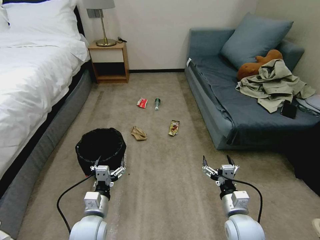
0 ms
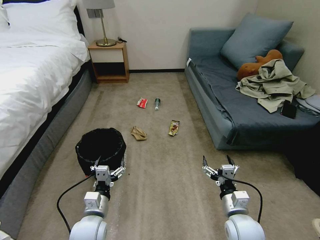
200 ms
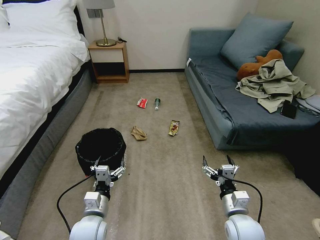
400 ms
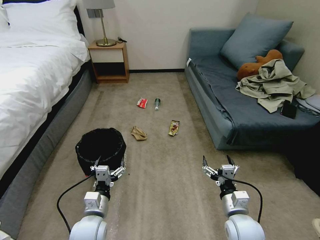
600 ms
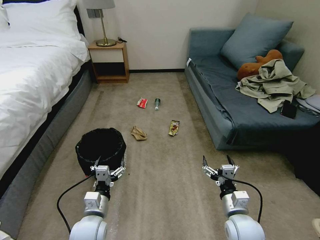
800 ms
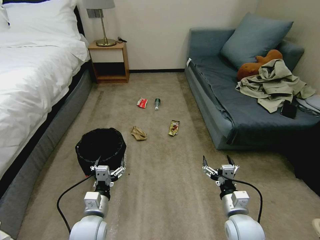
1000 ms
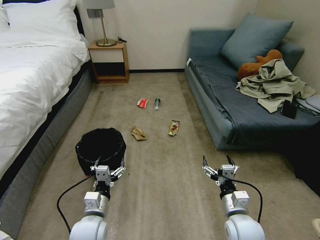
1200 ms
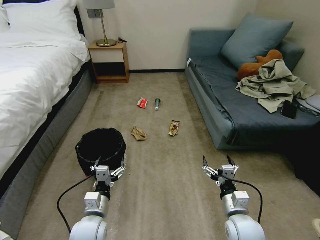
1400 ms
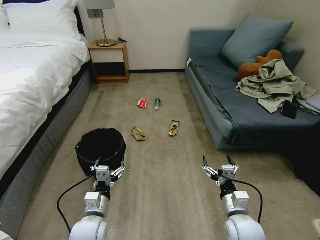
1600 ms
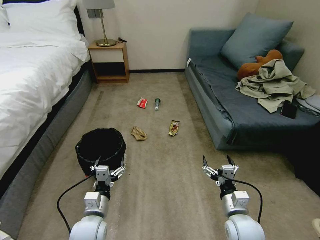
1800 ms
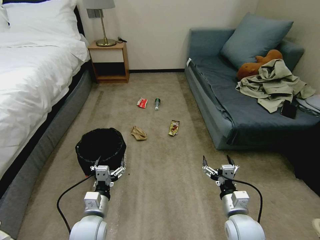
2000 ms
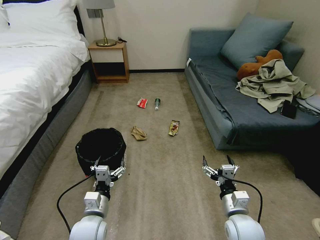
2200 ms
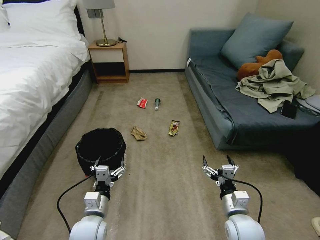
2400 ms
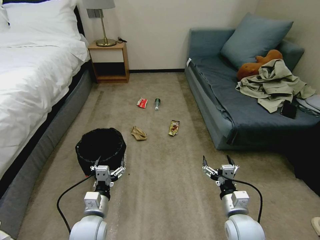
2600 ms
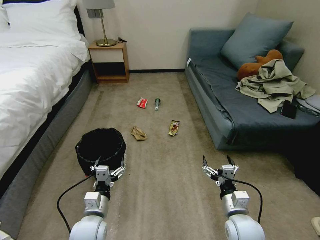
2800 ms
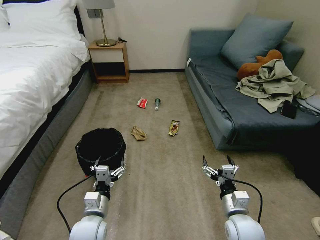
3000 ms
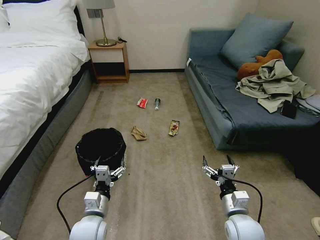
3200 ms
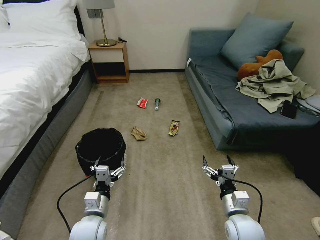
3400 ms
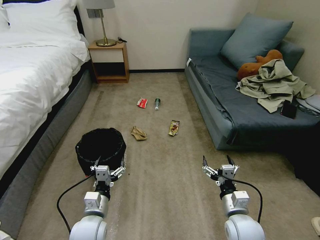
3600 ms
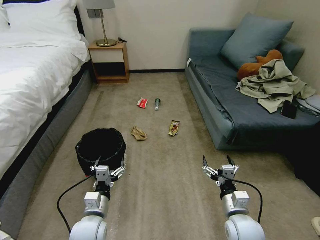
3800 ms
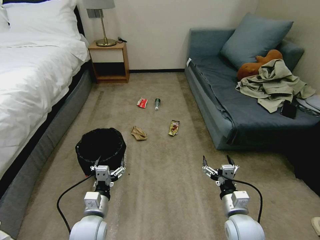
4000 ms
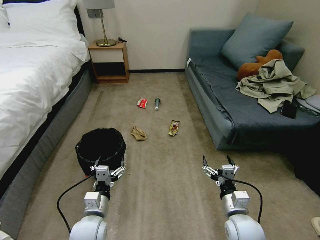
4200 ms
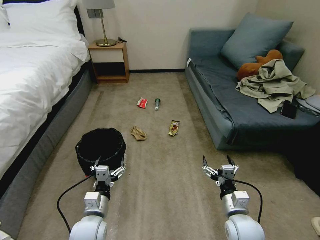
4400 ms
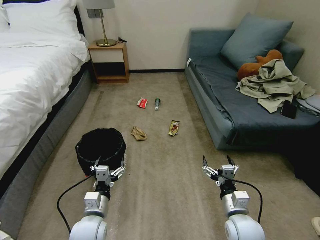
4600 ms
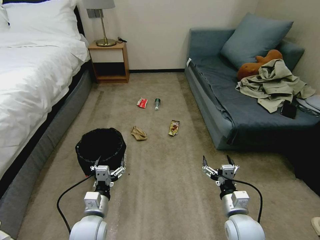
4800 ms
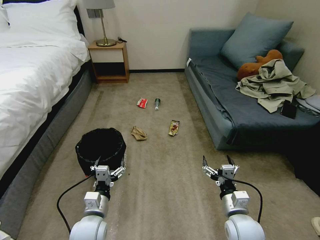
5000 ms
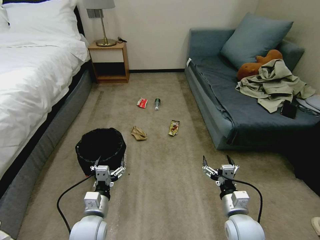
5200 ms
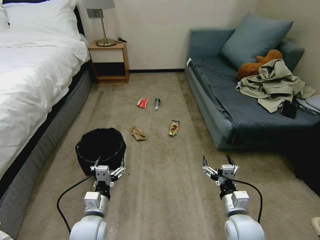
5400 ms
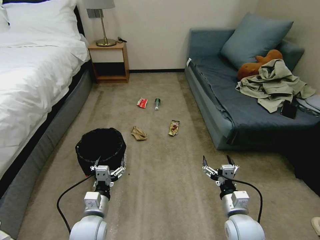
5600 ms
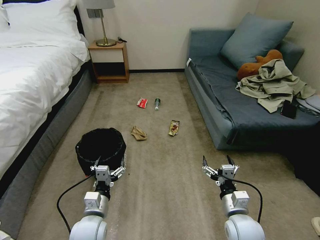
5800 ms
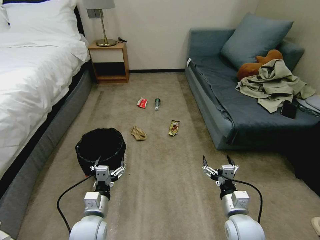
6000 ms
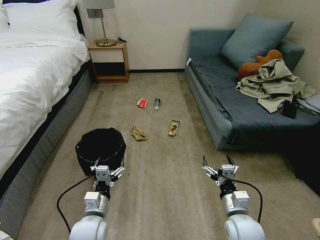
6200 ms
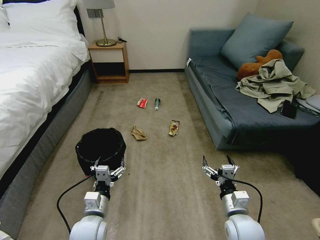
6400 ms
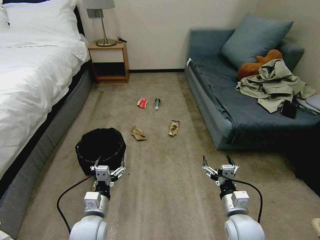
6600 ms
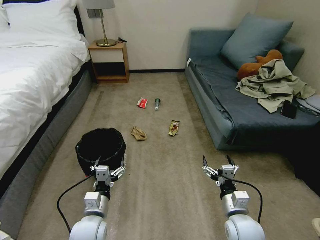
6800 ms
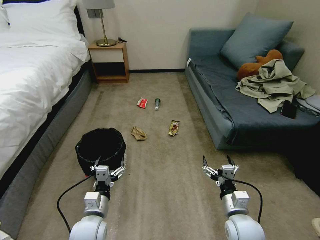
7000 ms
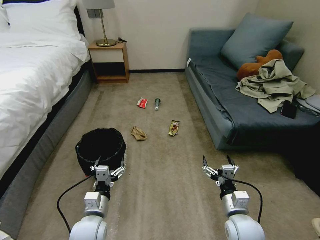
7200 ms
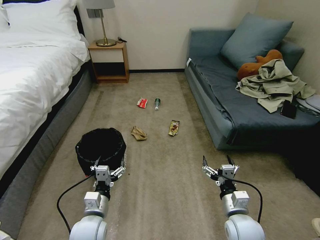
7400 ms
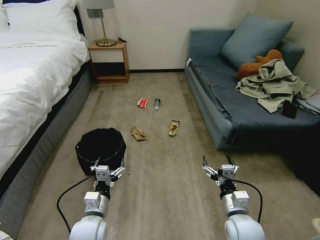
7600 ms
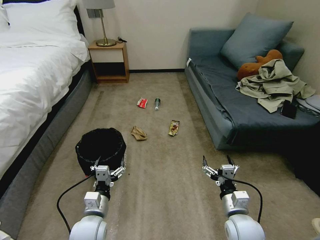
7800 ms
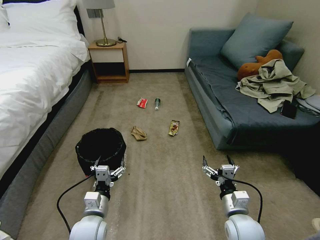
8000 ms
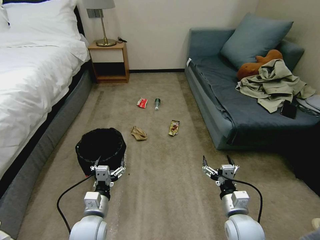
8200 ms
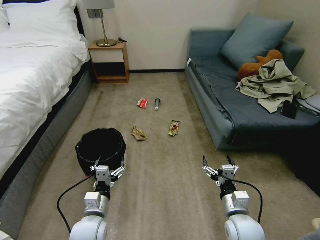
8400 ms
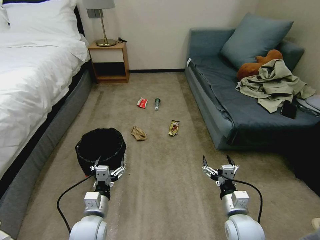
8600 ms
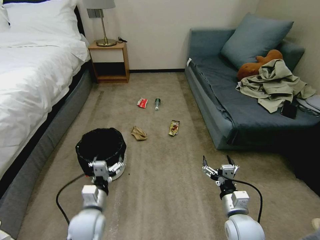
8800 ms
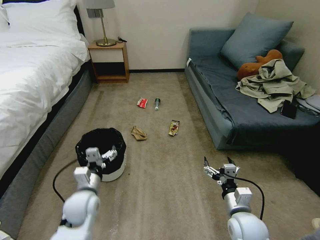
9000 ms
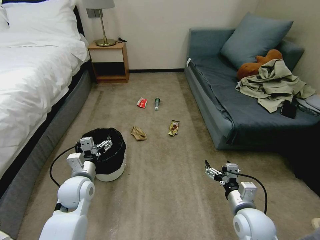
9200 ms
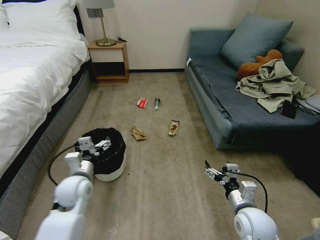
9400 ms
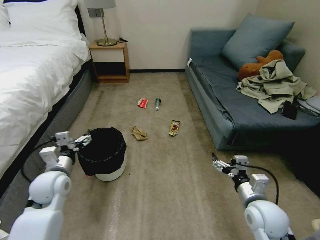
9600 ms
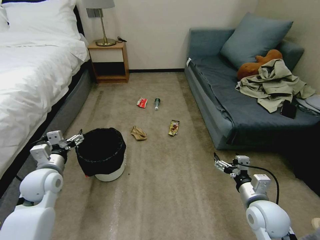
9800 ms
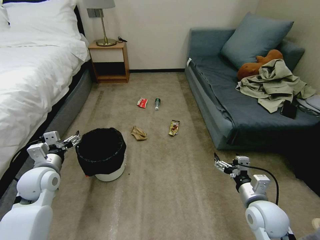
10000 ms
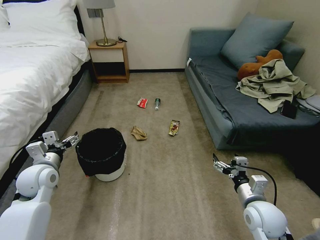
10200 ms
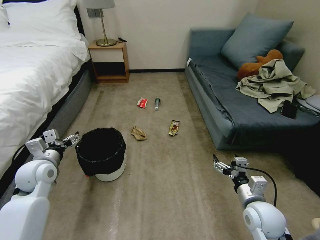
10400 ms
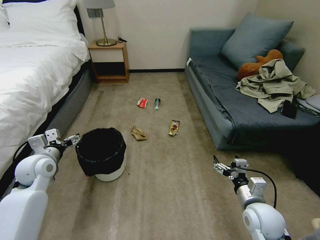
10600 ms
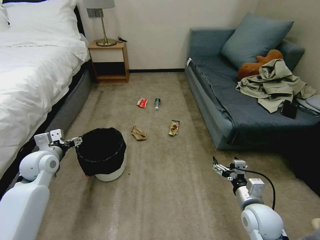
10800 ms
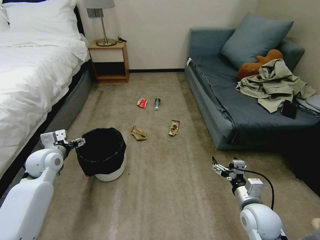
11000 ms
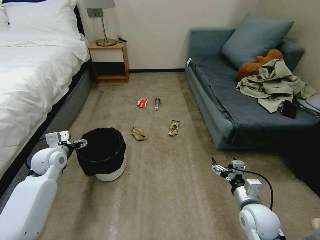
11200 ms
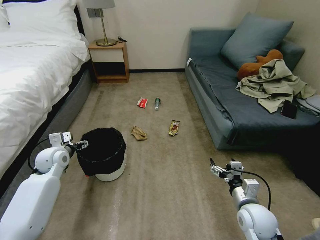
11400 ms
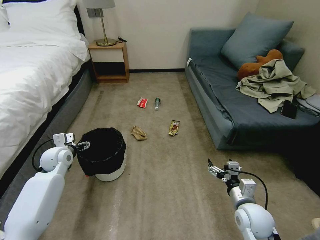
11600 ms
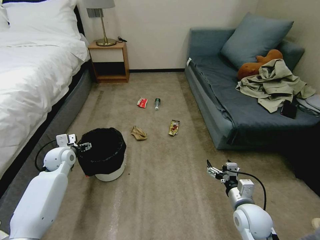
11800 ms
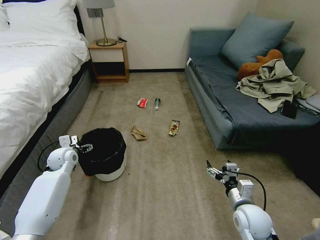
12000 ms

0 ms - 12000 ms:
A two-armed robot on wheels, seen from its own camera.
Task of the whole recording: Pick up the trash bin, then pick up the garbage on the floor and place it into the trash bin.
1600 ms - 7600 ms: Neither gripper changes place.
7600 ms - 9000 ms: The left gripper shifts some 5 cm forward.
9000 ms - 10400 ms: The right gripper changes place by about 5 cm; the left gripper moves to the left, upward and forward, some 15 cm.
10400 ms - 12000 ms: The left gripper heads forward and downward, covering some 15 cm.

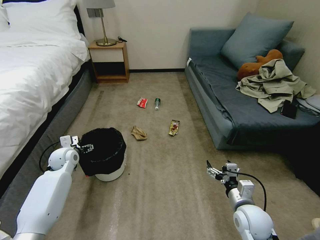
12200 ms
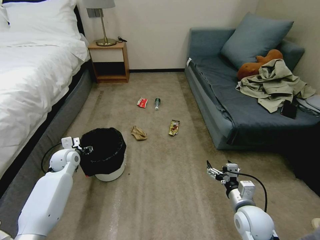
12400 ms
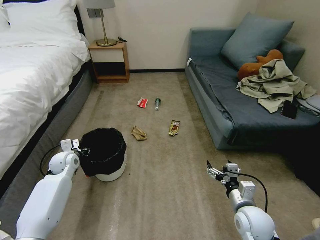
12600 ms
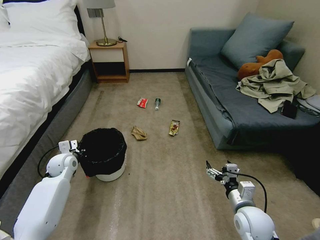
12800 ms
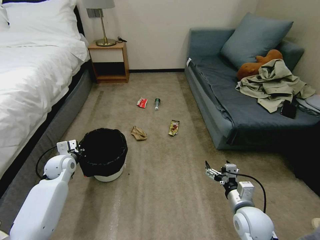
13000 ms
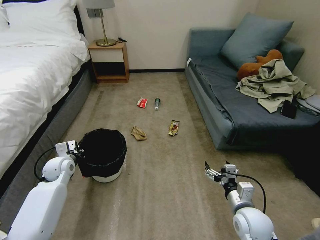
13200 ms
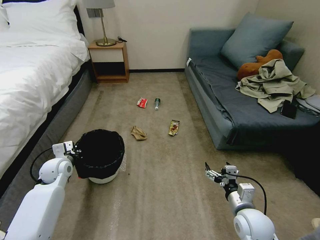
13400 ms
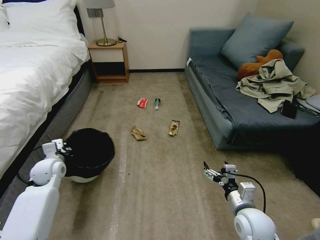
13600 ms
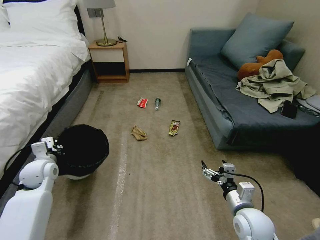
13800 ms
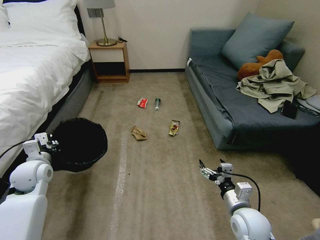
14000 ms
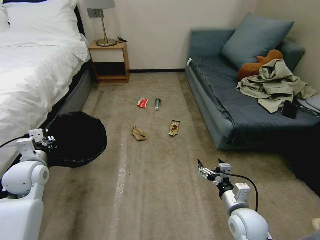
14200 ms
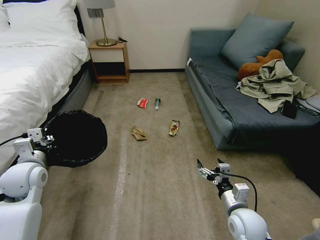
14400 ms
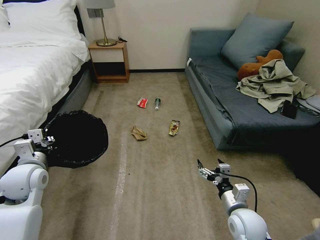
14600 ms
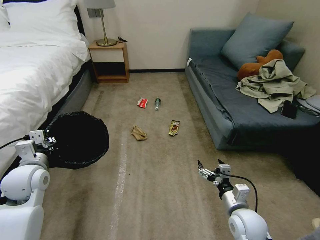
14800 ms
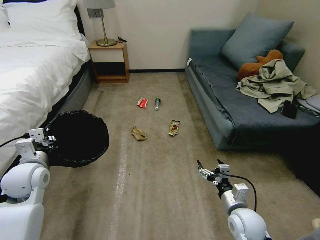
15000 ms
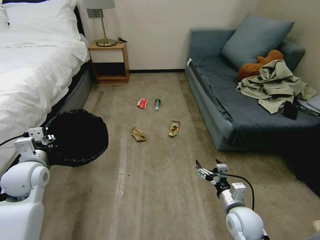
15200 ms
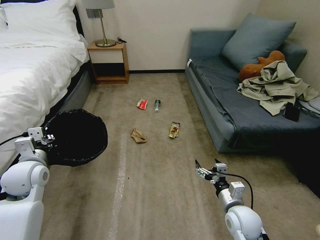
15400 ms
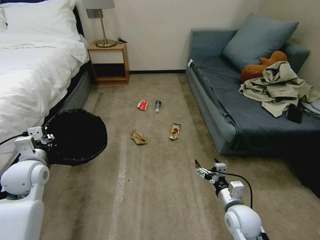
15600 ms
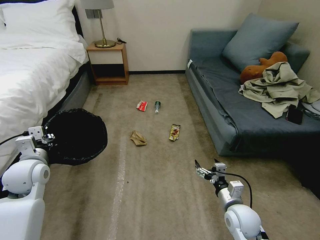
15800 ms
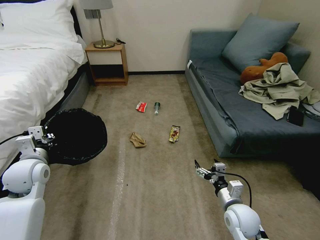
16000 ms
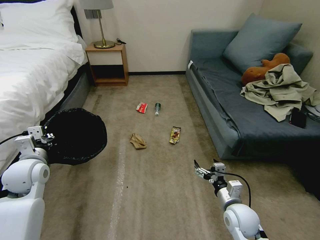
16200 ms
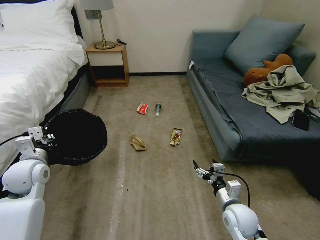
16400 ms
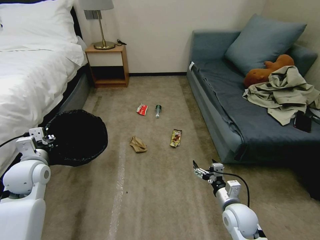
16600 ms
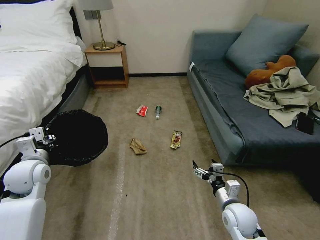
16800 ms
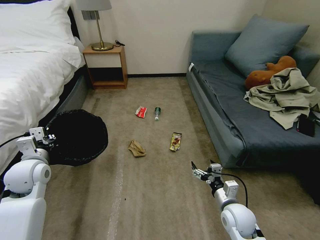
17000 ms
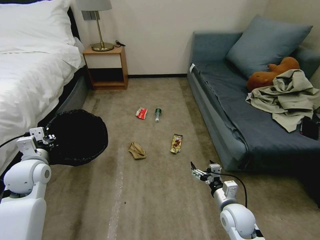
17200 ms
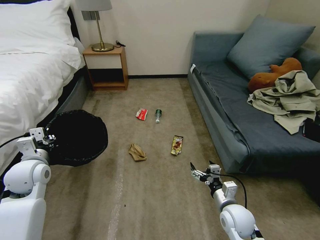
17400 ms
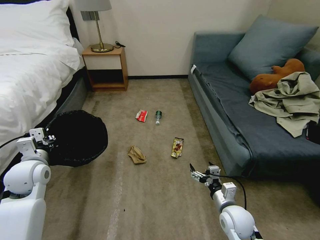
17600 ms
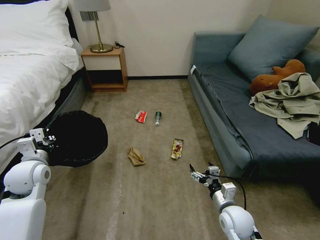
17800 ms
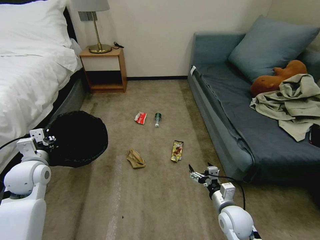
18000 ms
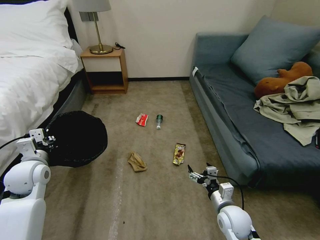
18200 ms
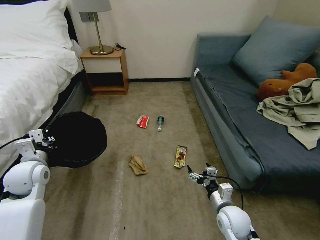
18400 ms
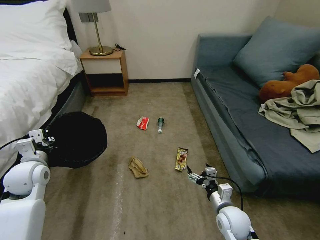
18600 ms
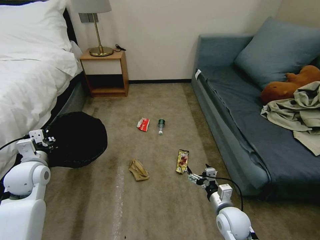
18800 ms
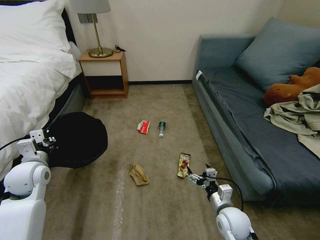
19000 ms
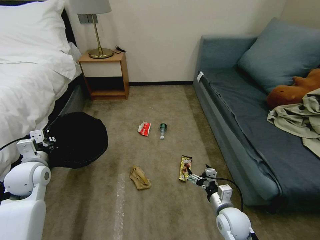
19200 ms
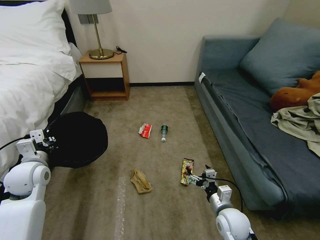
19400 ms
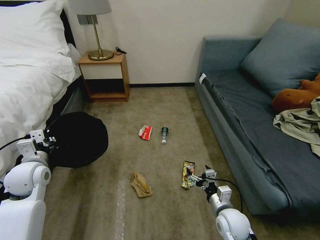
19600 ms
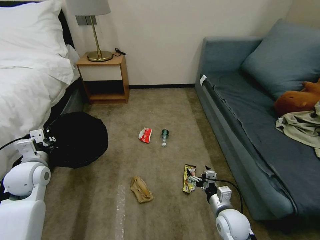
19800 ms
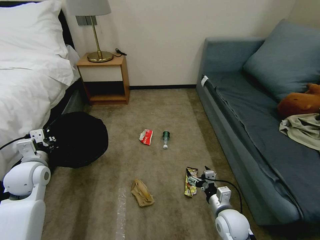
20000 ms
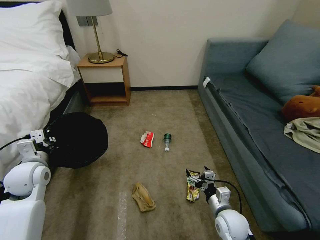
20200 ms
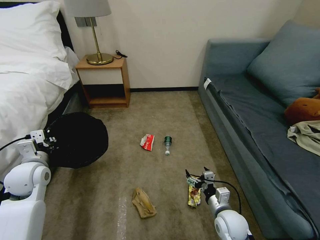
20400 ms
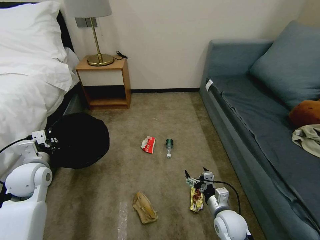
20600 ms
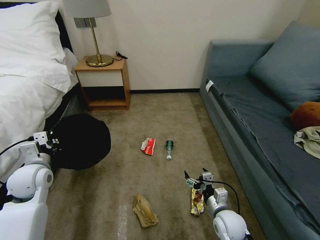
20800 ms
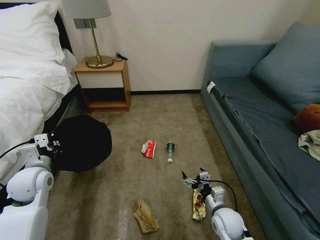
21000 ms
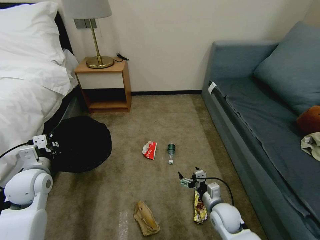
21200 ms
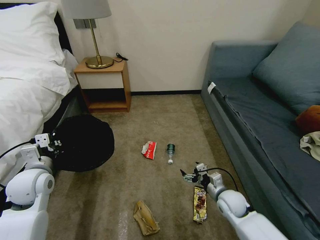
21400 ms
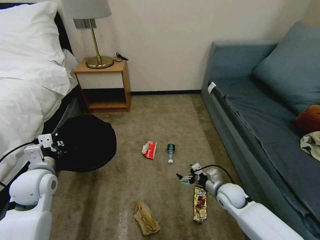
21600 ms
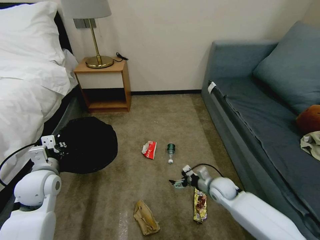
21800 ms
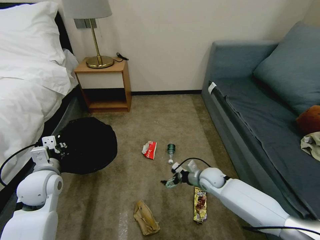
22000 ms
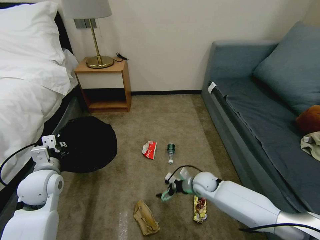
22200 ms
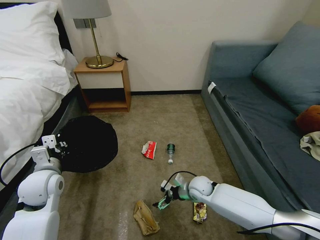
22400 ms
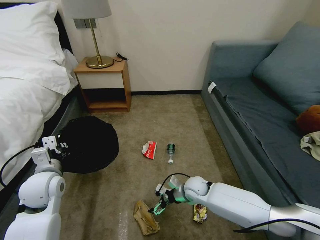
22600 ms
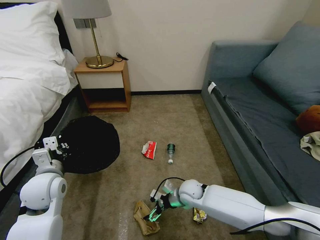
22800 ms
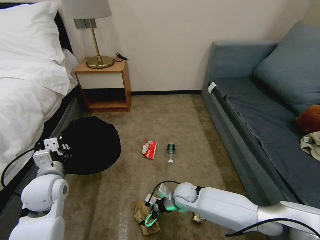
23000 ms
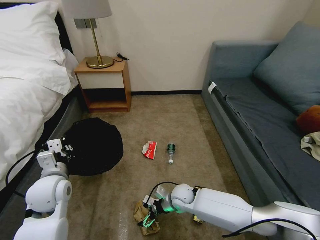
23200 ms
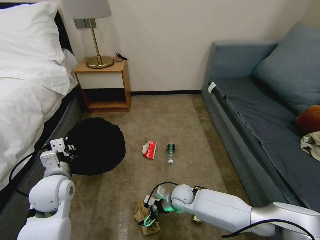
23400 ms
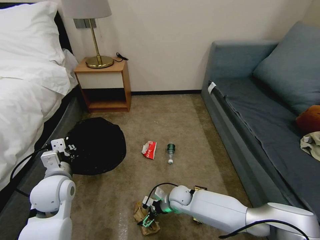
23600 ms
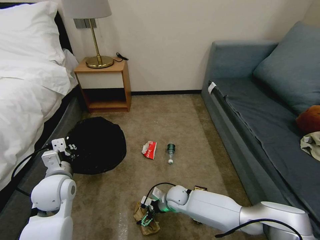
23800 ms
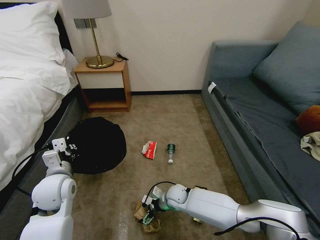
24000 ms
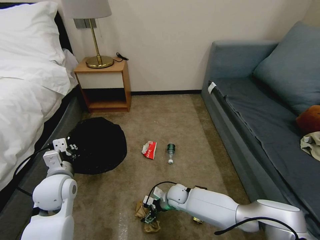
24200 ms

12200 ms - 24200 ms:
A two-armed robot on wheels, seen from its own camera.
Task of the whole recording: Pick up the trash bin, then pick up the garbage on the floor and place it into the trash bin.
12200 ms - 13800 ms: The left gripper heads backward, covering some 10 cm, and closes up.
13800 ms - 15200 ms: The left gripper travels upward by some 5 cm.
21200 ms - 22600 ms: The right gripper moves forward and to the left, roughly 15 cm.
22600 ms - 24200 ms: The right gripper moves to the left and downward, some 10 cm.
